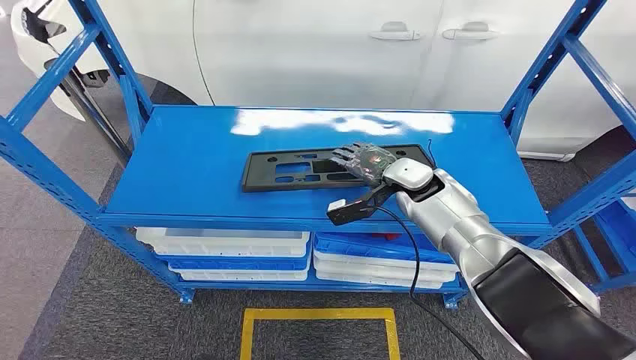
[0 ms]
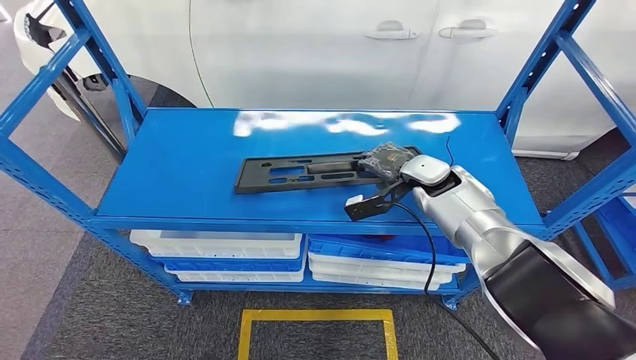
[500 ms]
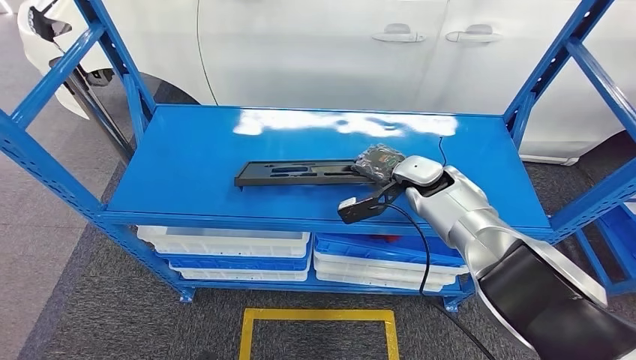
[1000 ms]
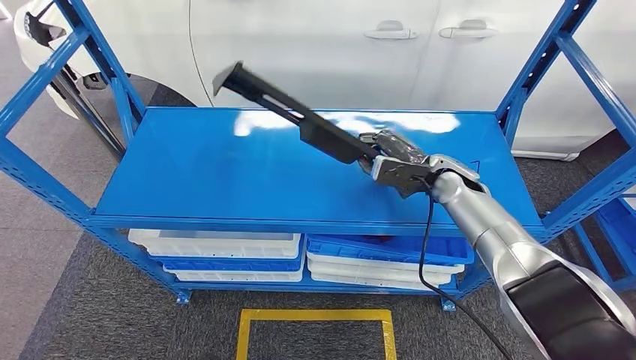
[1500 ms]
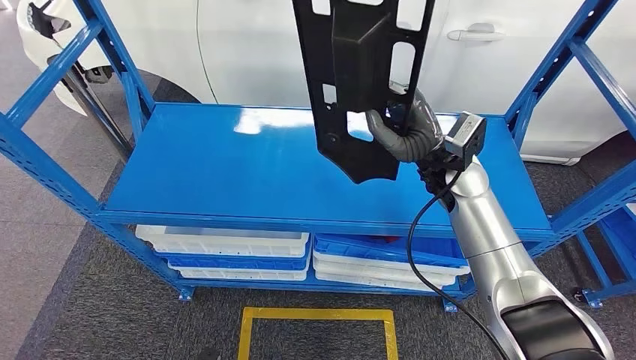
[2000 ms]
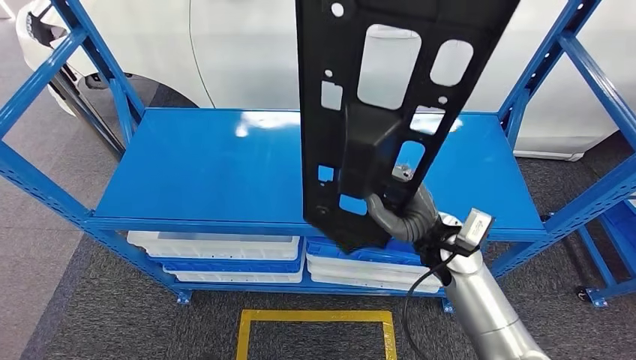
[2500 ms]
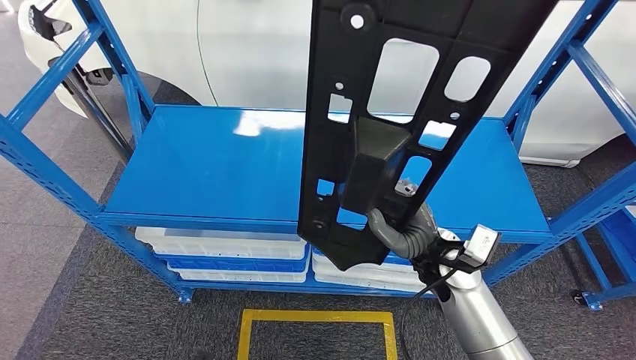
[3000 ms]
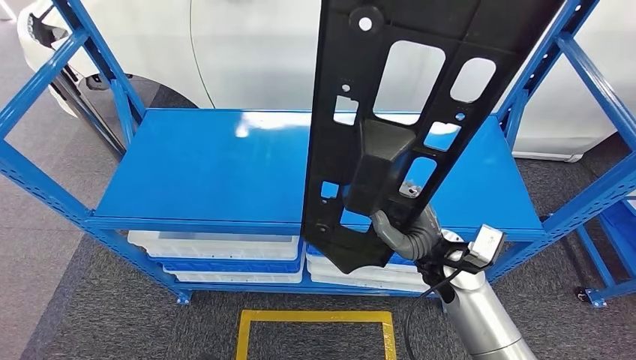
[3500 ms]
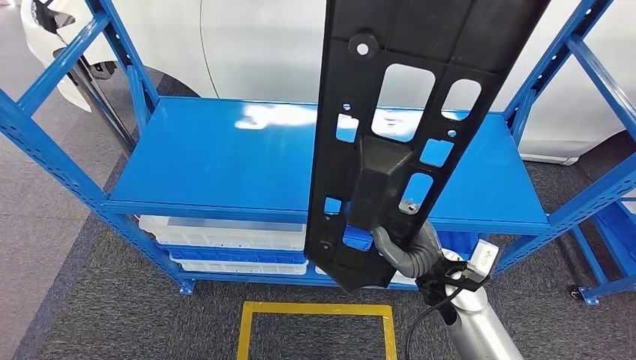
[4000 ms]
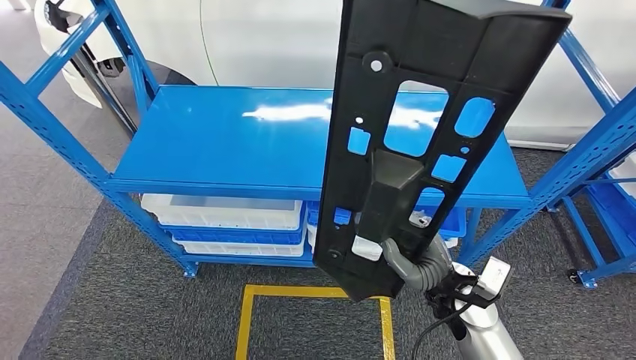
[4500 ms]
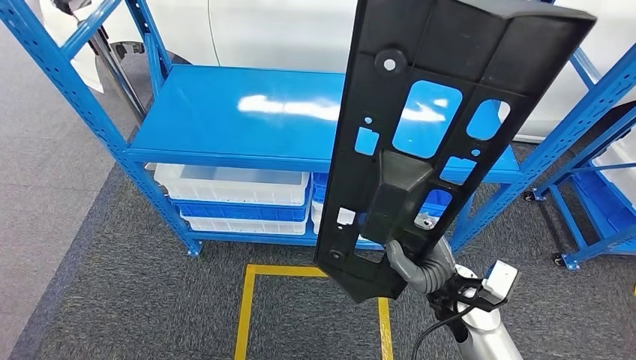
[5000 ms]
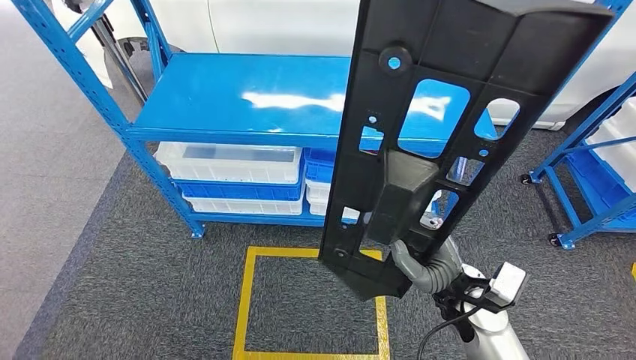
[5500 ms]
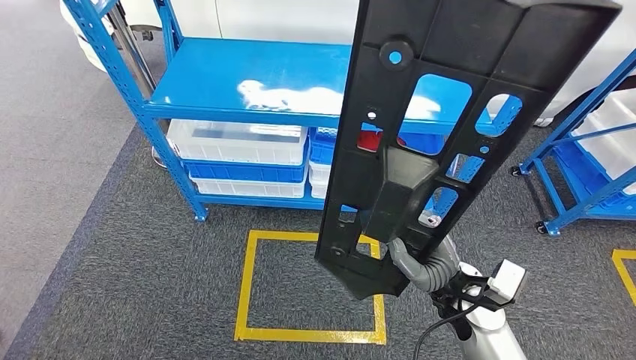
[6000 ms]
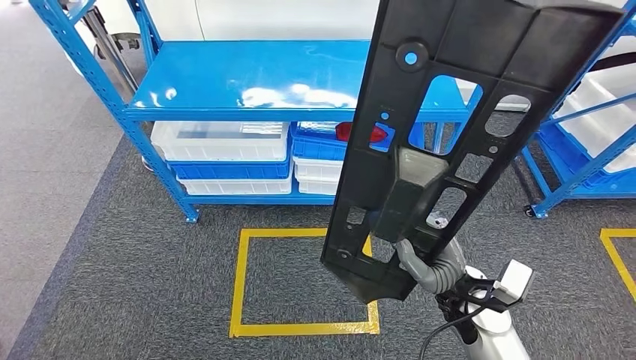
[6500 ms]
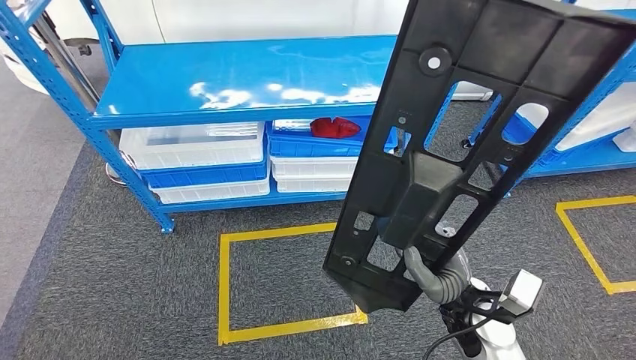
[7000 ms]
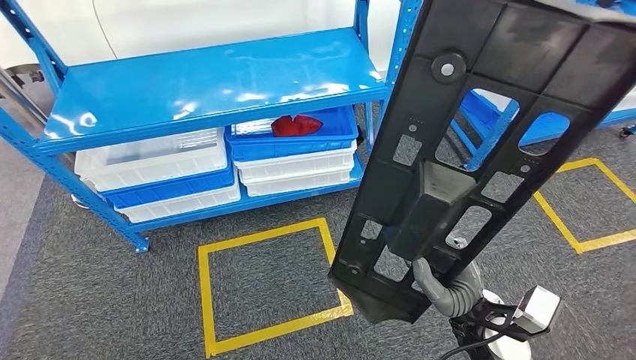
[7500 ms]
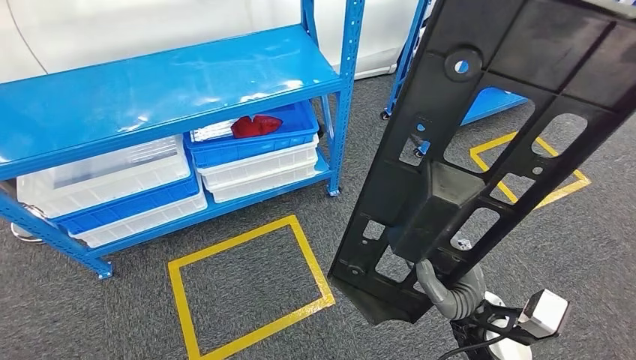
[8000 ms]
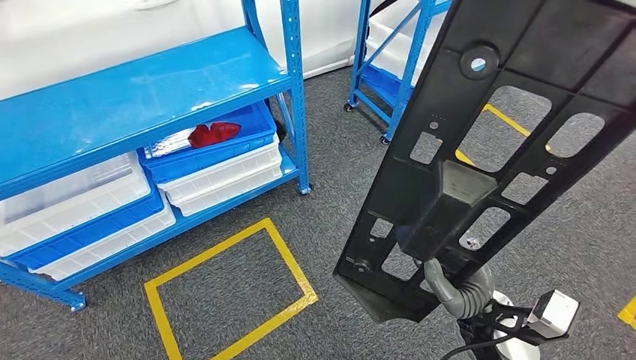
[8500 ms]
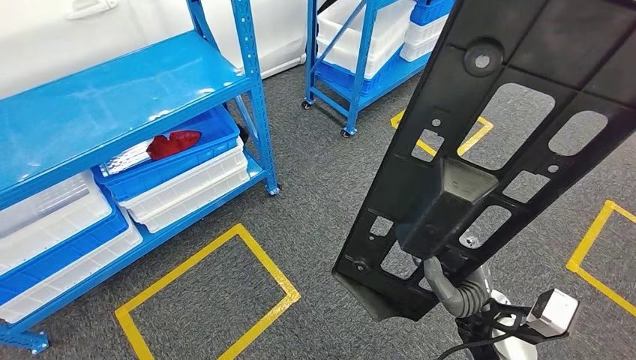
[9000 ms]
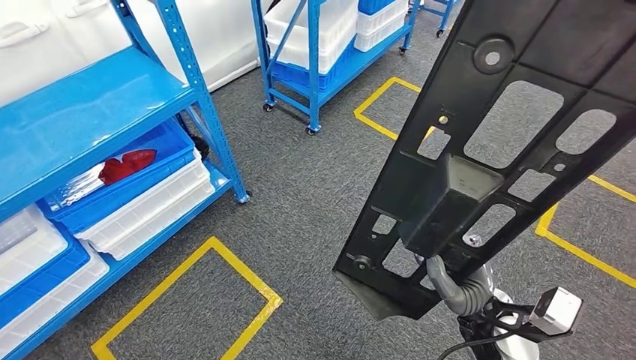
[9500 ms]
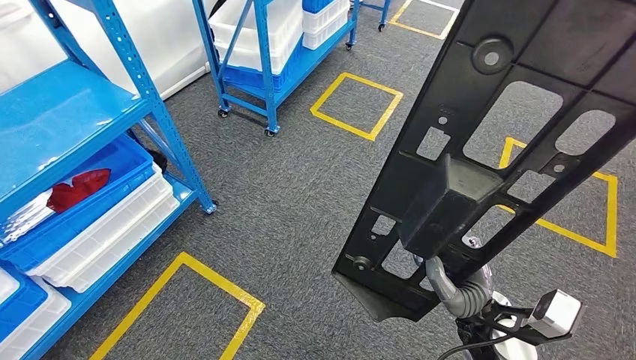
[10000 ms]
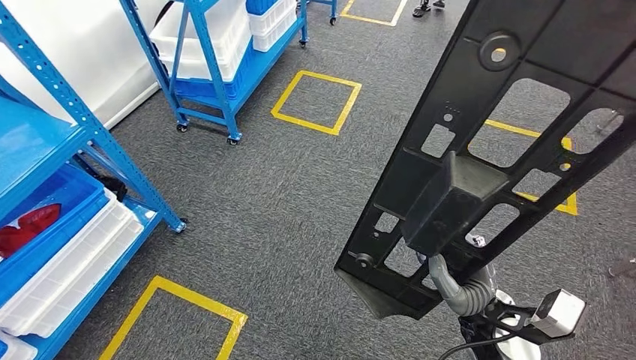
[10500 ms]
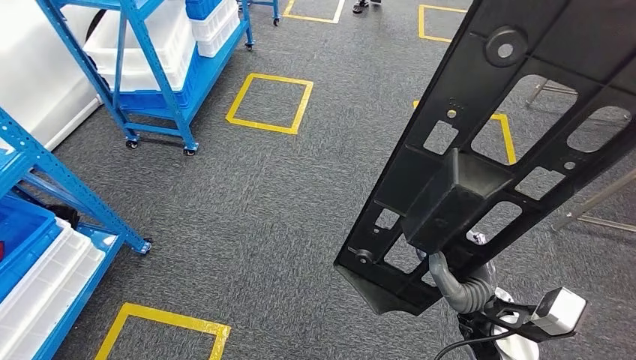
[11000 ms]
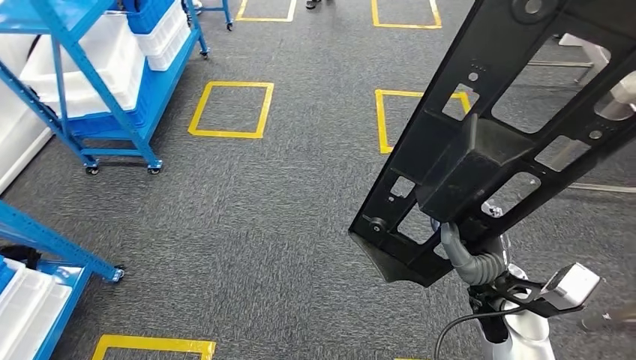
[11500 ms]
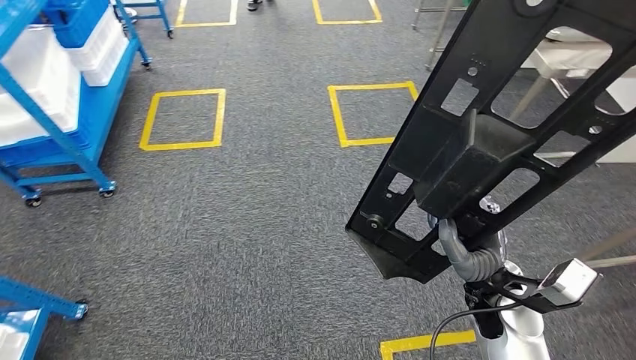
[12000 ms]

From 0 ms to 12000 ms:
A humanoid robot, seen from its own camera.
Step, from 0 ms to 4000 ms: Pick up the large material from the shelf.

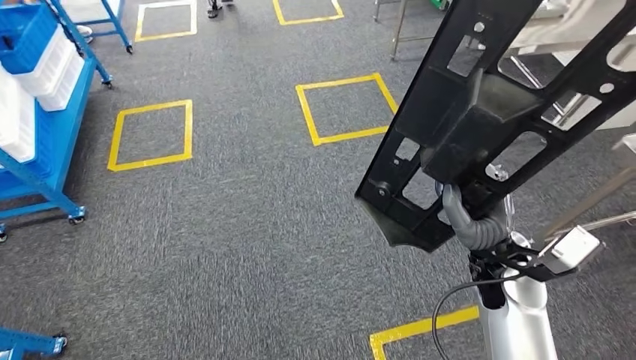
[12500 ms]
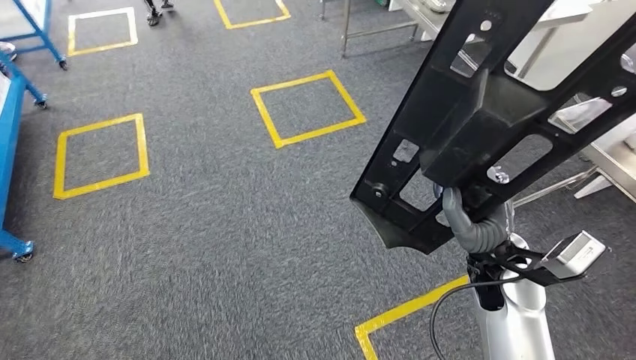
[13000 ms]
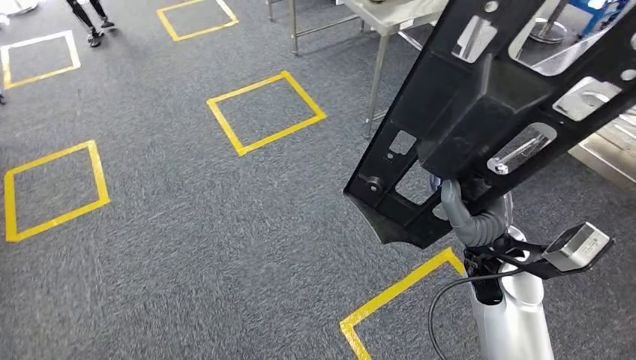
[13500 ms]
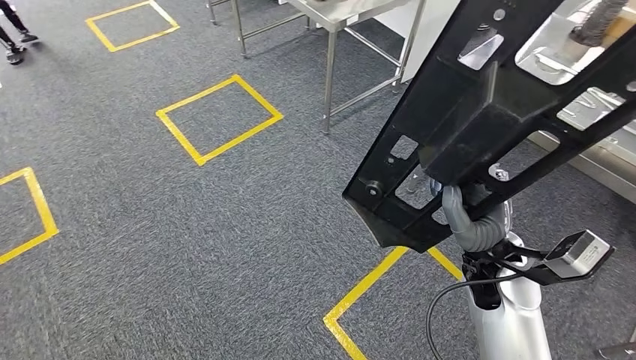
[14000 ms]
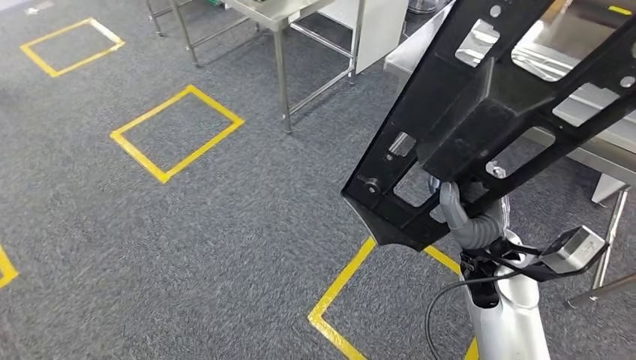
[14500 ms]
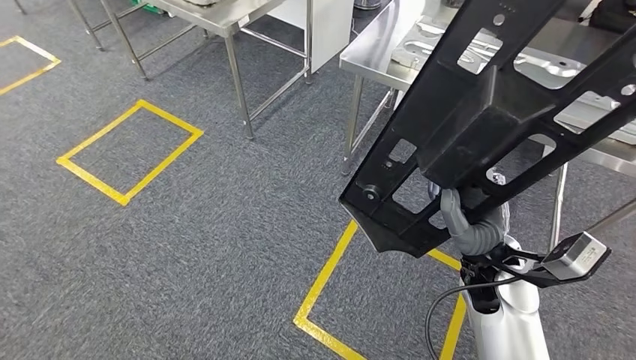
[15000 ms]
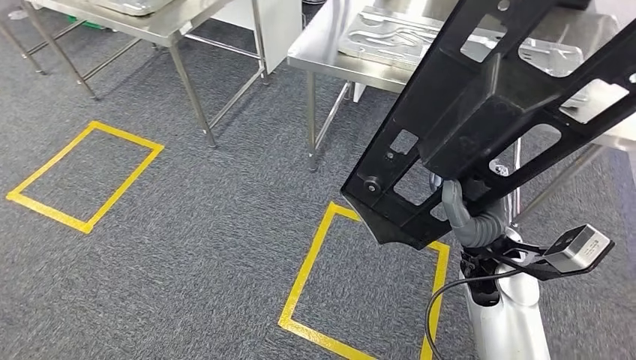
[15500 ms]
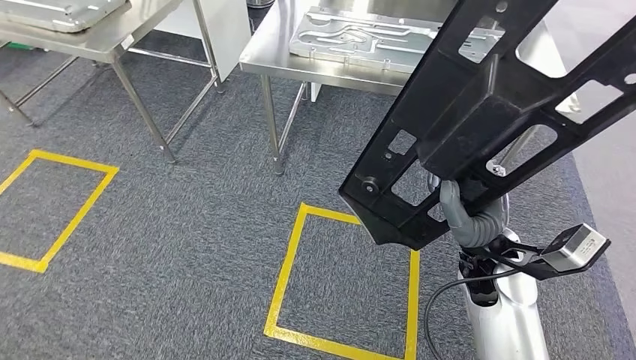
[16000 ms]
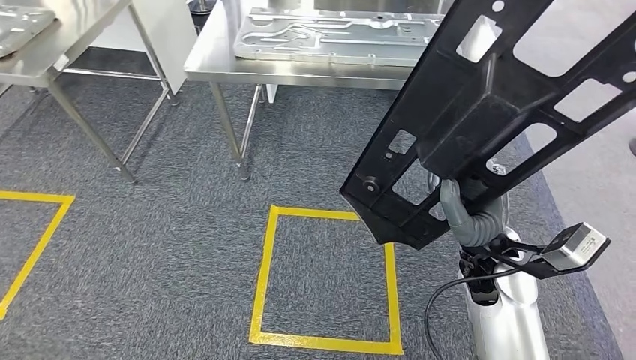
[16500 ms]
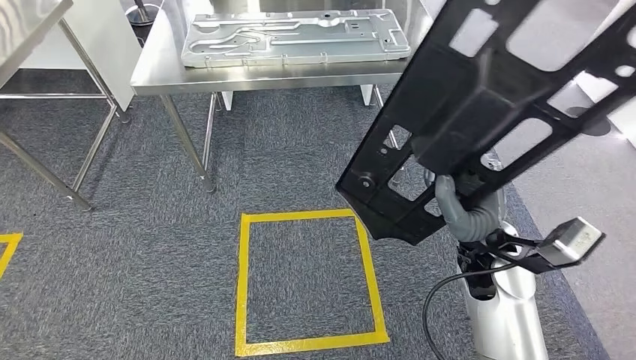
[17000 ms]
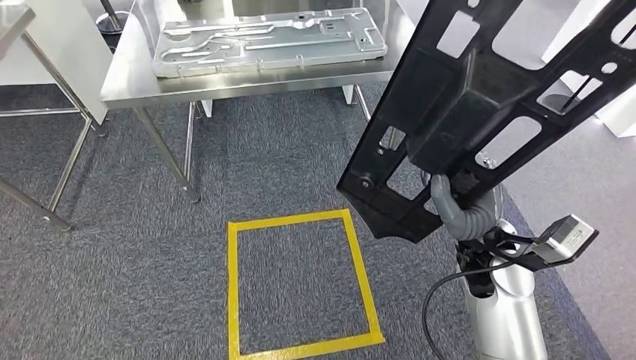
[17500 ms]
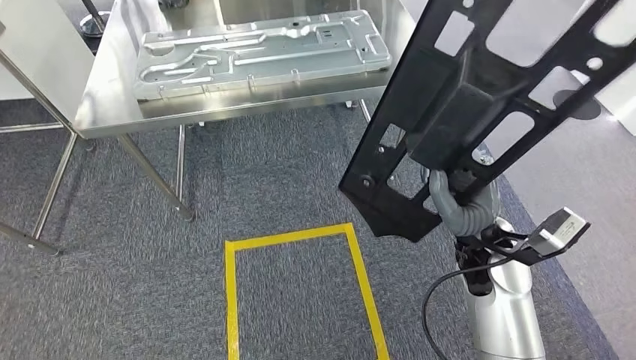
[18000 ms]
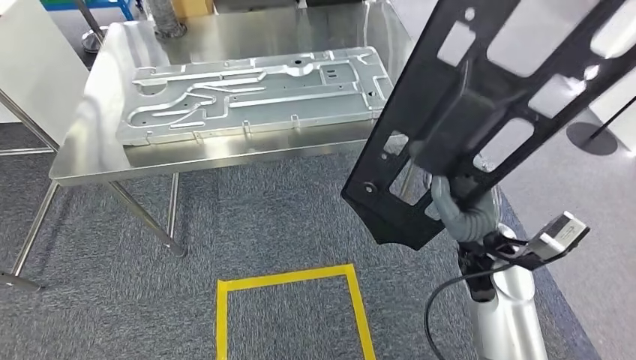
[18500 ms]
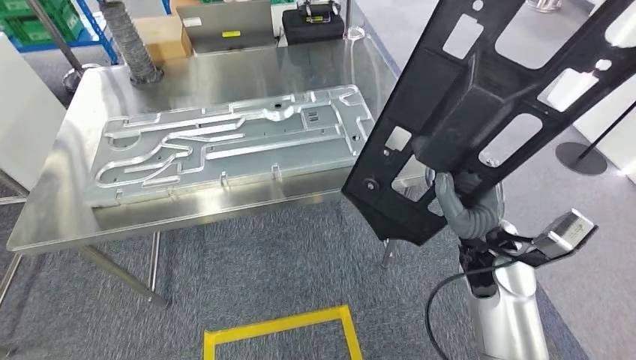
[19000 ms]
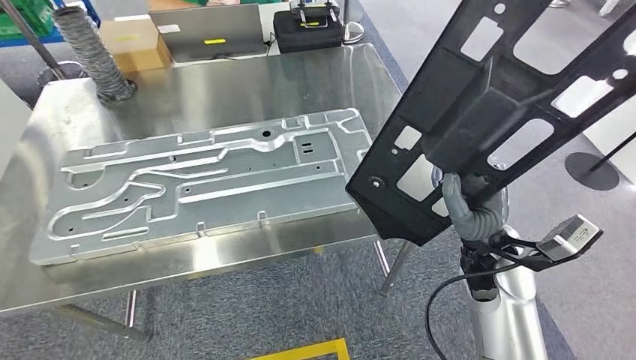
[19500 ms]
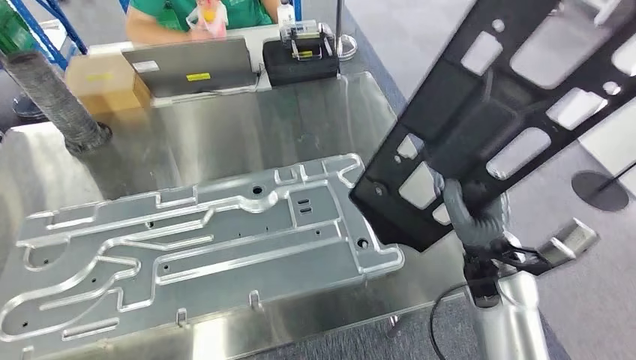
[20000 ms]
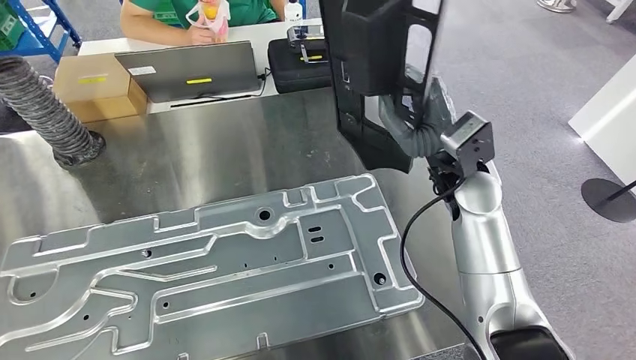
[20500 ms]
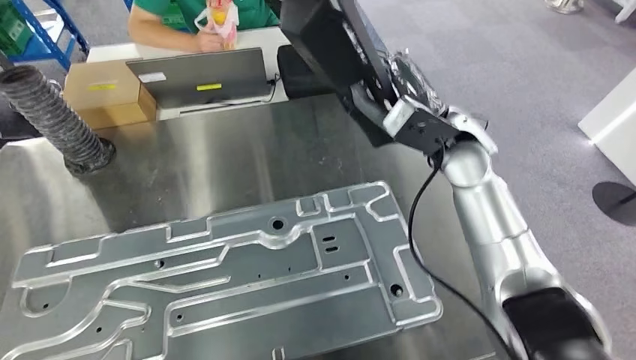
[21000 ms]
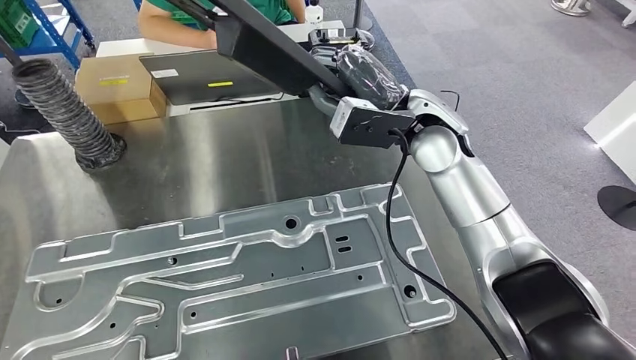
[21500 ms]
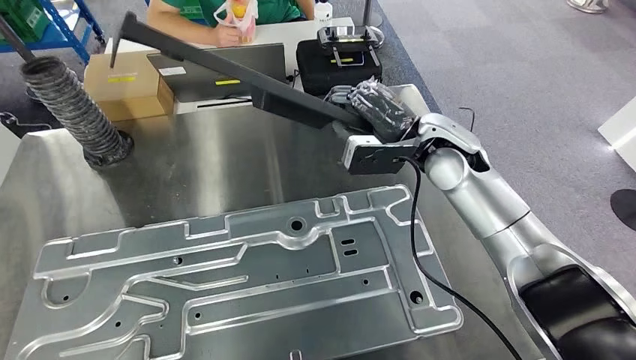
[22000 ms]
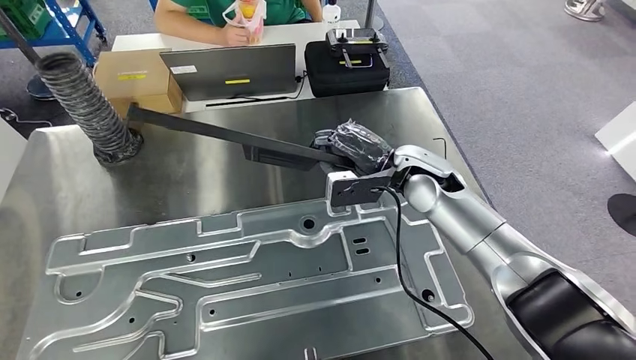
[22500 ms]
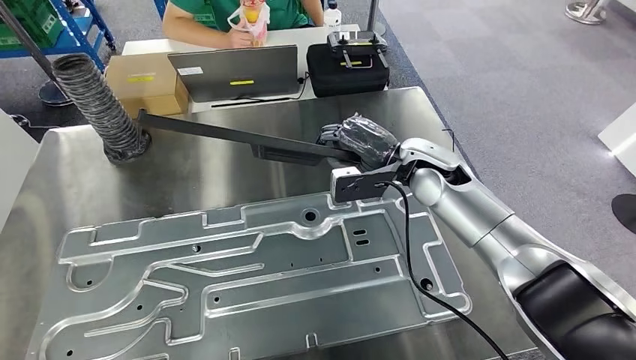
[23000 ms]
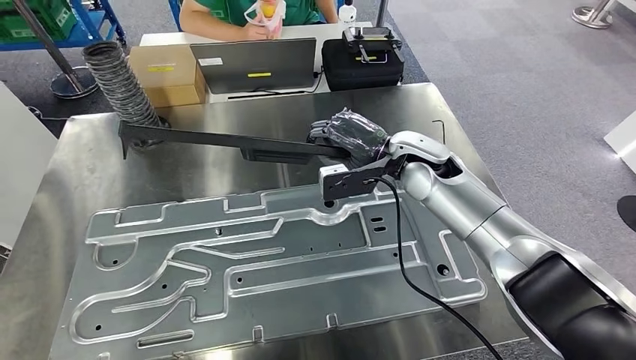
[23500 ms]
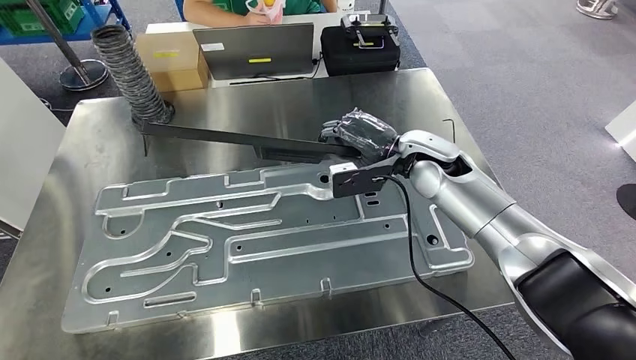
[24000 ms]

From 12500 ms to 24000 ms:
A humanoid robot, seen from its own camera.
Step, from 12500 ms to 18500 ms: Move the large material to the workbench.
